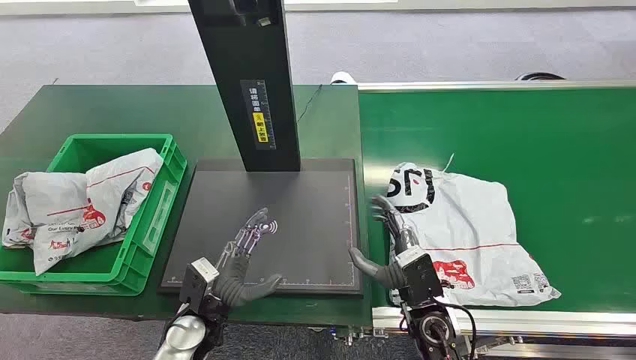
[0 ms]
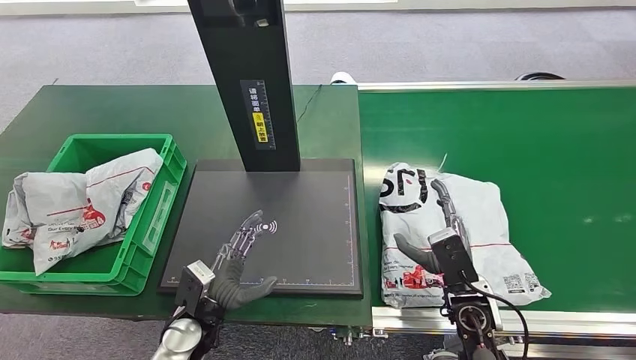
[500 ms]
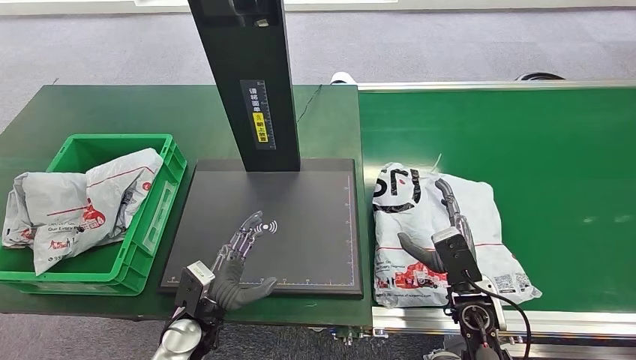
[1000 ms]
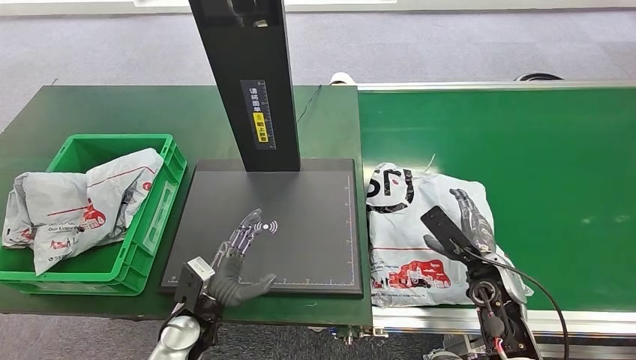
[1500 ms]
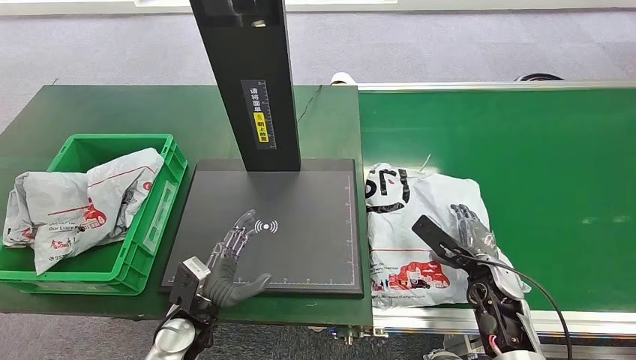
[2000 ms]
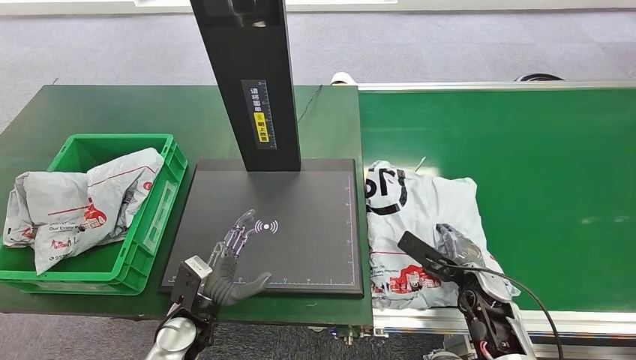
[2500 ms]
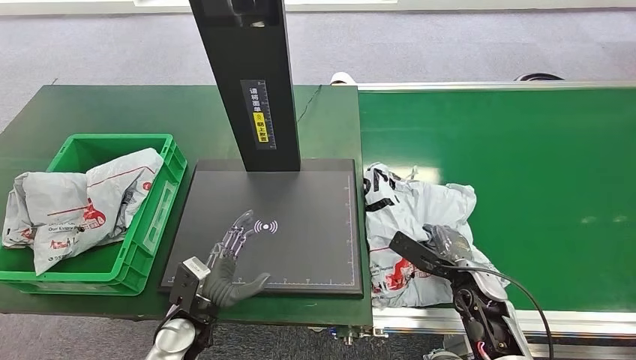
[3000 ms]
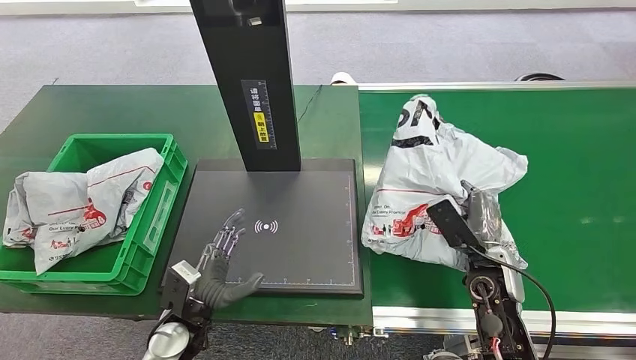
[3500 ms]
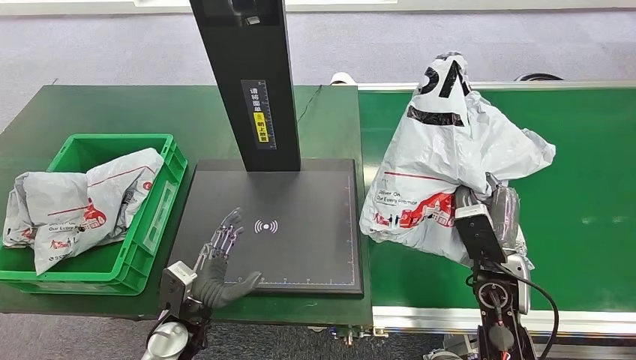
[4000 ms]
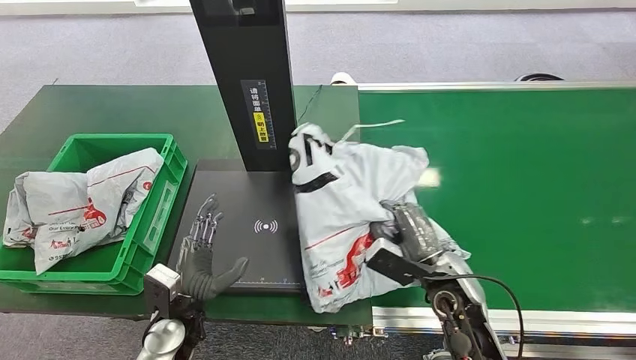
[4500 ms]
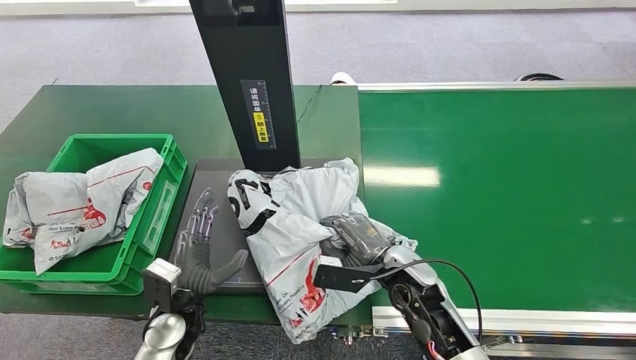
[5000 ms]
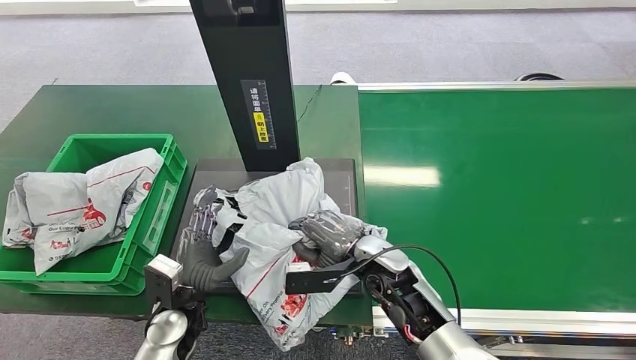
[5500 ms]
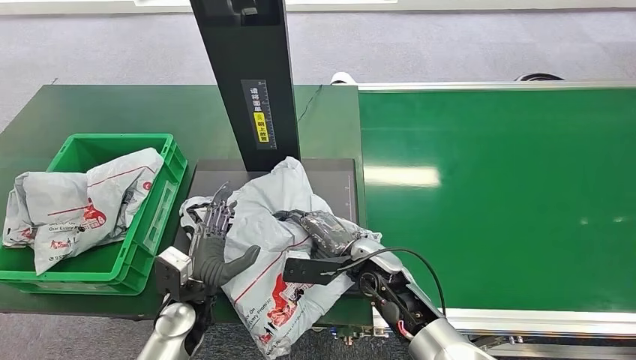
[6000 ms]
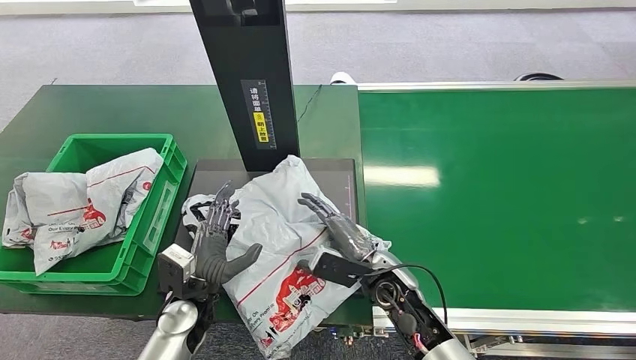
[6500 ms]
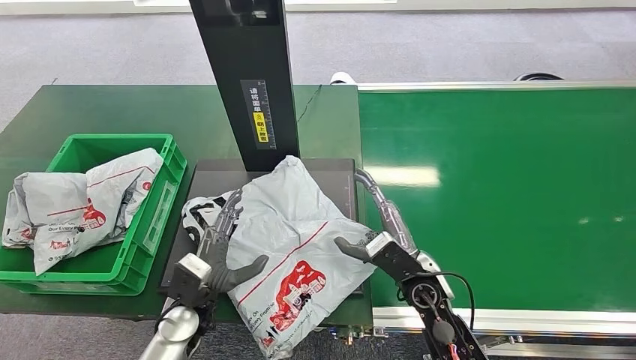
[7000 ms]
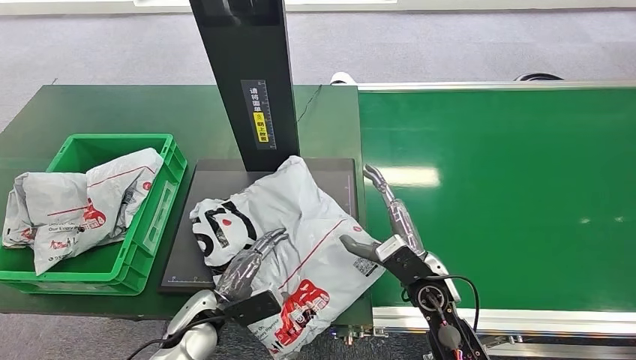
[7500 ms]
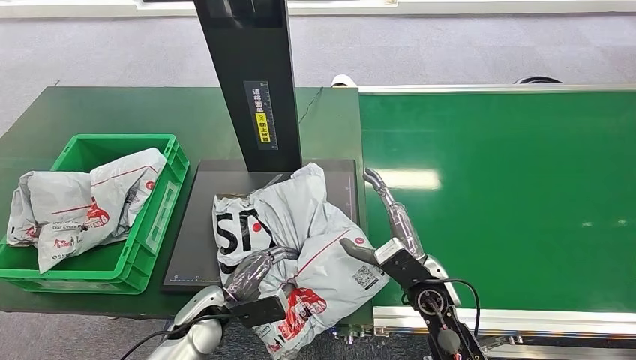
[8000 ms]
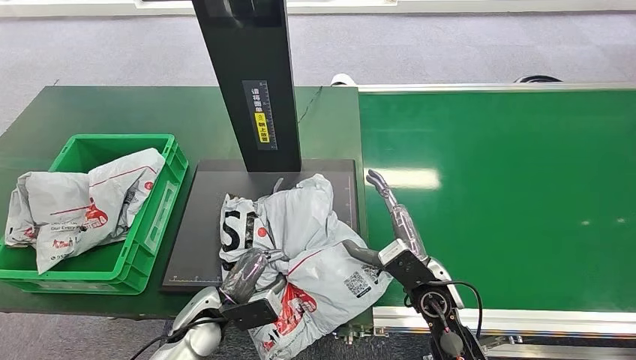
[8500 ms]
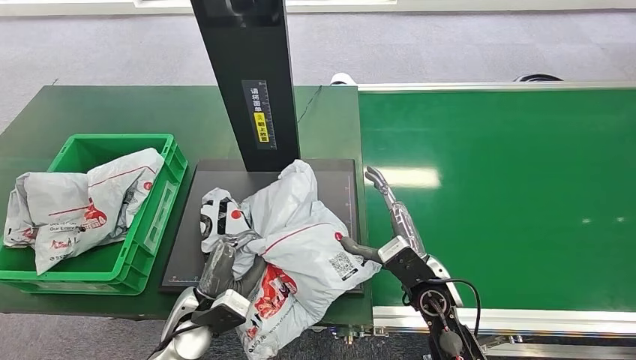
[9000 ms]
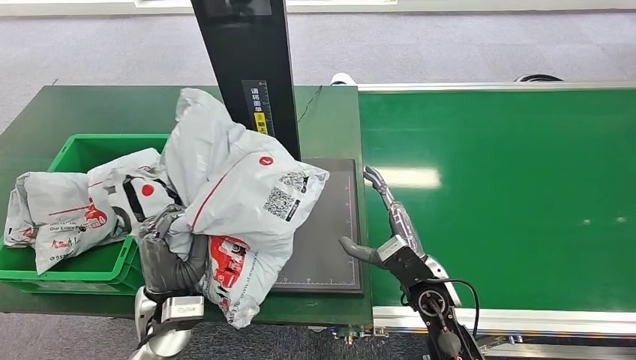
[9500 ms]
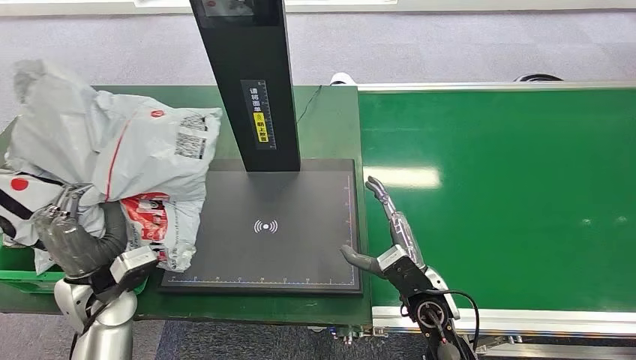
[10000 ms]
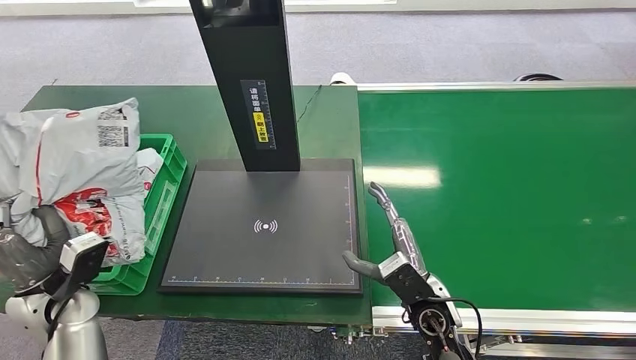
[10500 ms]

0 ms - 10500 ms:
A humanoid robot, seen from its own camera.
Step, 0 ms - 4000 ms: Pick up the package from the conveyor belt.
Step, 4500 ms - 7000 ms: Place the package onto the inbound machine.
Step, 7500 ms - 9000 ms: Pick up the package from the inbound machine.
2000 ms - 4000 ms: The right hand heads upward, covering some 5 cm.

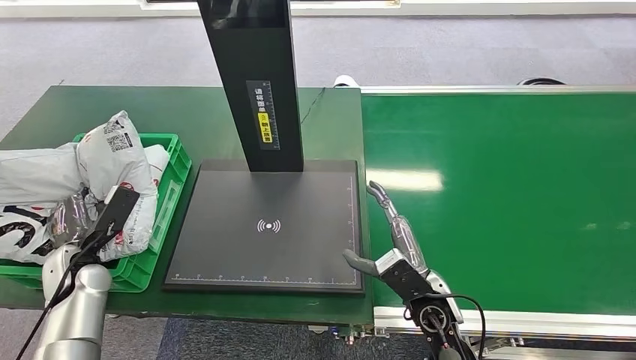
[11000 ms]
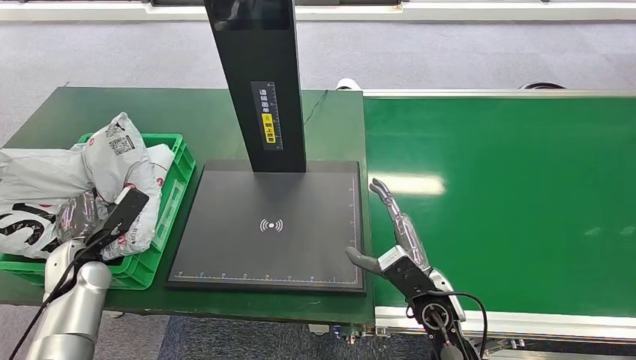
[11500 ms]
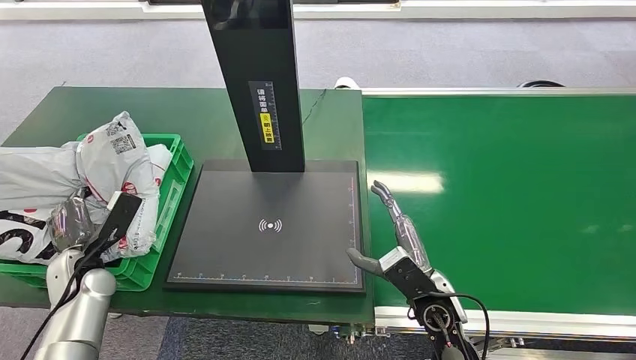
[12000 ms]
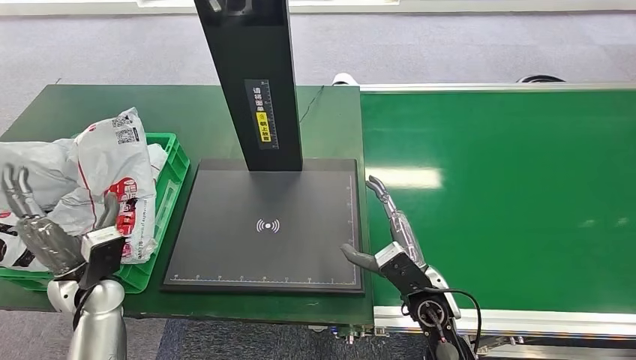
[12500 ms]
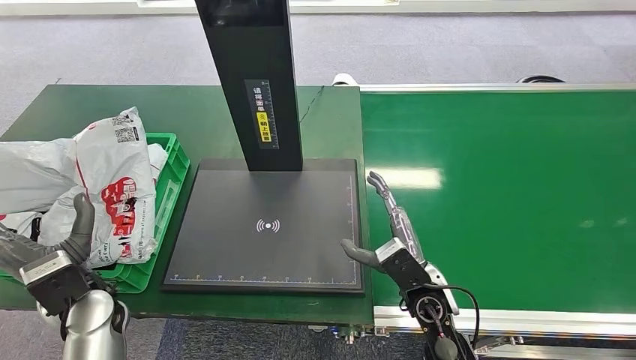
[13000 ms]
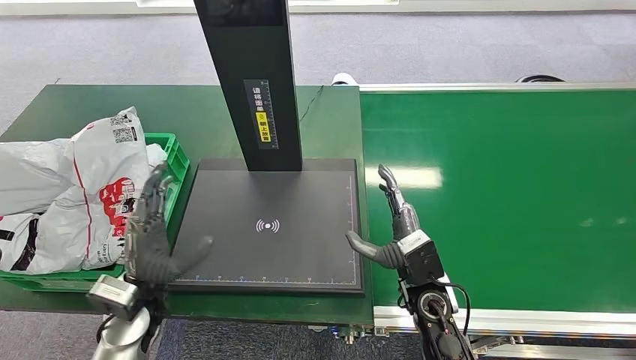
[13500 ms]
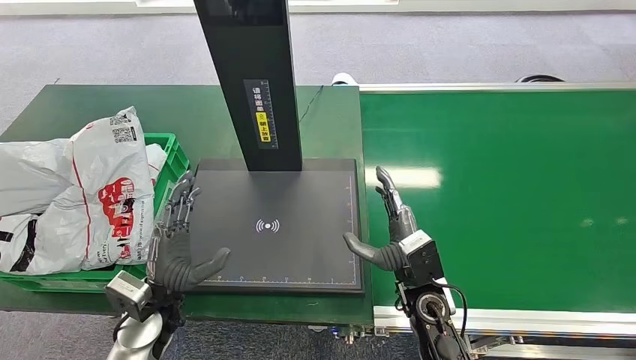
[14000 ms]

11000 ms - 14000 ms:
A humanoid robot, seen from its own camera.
Step, 11000 ms - 14000 ms: Place the package into the parcel locker.
11000 ms - 12500 ms: The left hand goes about 5 cm to the right.
12500 ms - 14000 ms: The left hand goes some 10 cm to the right.
